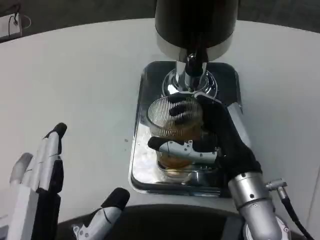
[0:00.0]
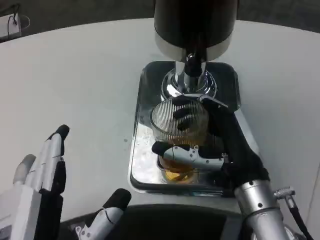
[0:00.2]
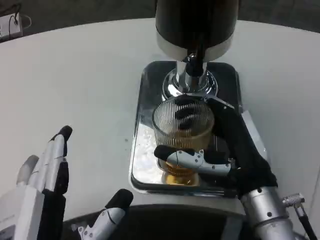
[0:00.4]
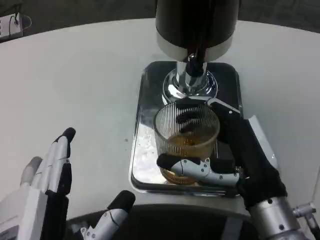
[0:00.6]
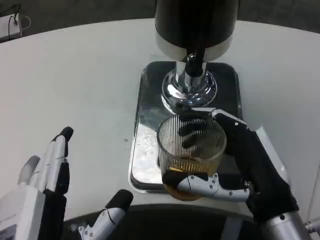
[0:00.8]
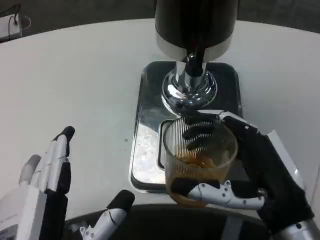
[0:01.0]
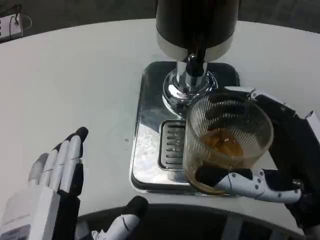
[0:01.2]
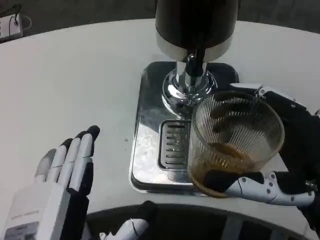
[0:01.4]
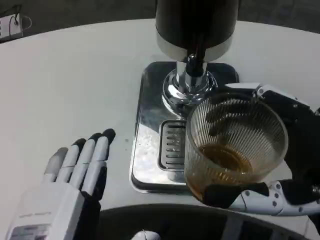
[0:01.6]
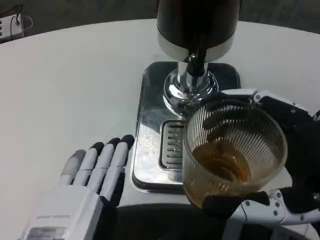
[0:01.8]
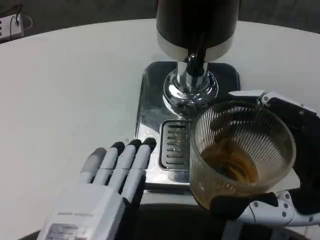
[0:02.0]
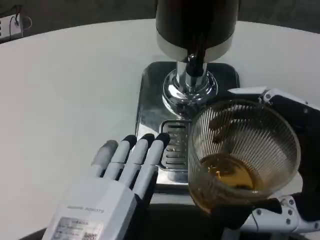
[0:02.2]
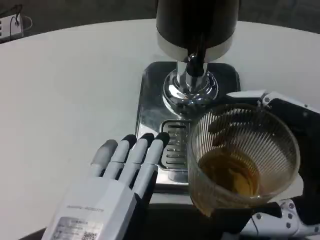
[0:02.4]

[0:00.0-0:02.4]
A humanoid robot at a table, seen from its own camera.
Task of the whole recording: Grasp the cup under the faucet to collect the drink, then remove the cup.
0:00.0 to 0:01.2: The right hand moves backward and to the right, approximately 10 cm.

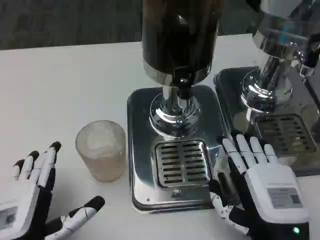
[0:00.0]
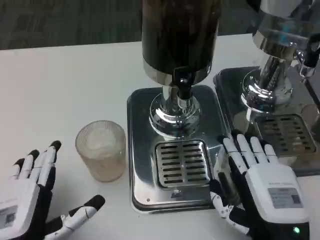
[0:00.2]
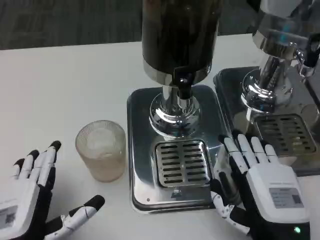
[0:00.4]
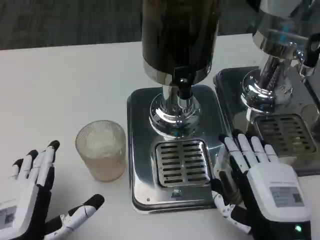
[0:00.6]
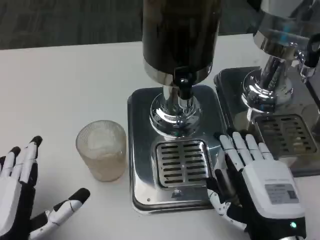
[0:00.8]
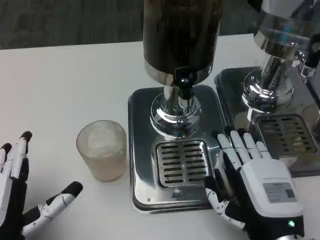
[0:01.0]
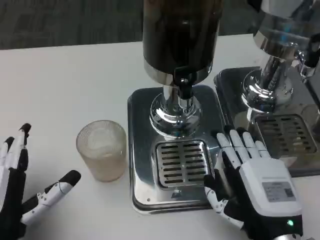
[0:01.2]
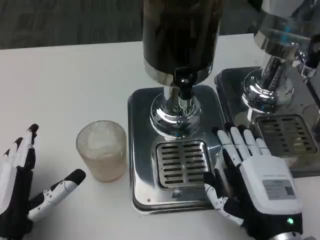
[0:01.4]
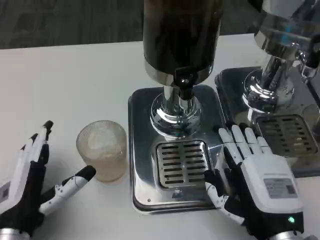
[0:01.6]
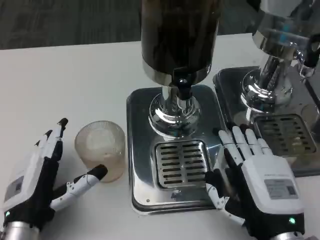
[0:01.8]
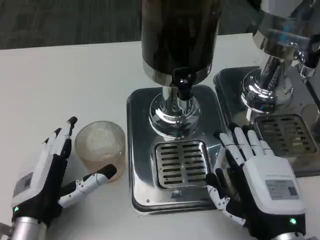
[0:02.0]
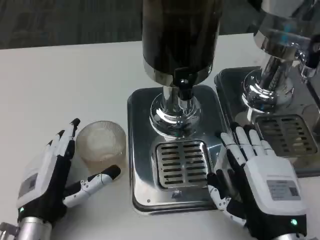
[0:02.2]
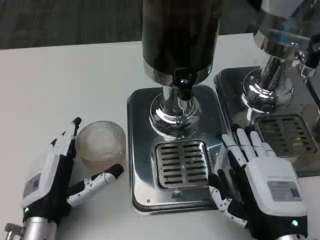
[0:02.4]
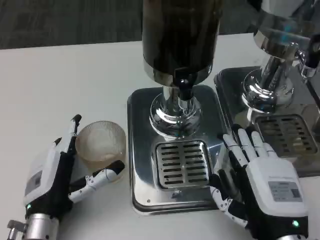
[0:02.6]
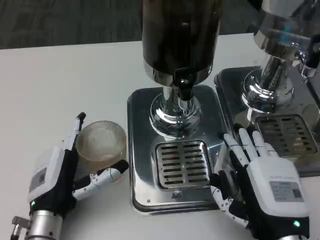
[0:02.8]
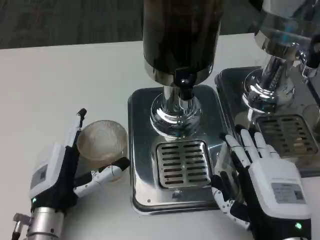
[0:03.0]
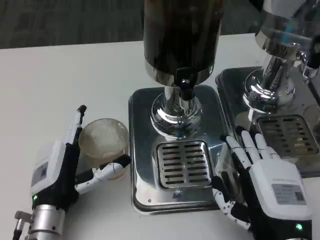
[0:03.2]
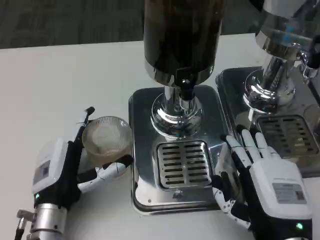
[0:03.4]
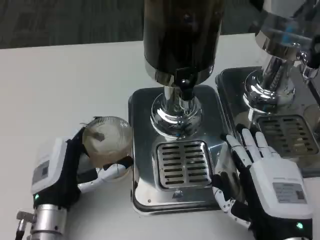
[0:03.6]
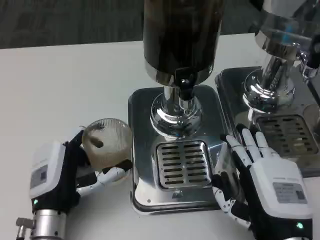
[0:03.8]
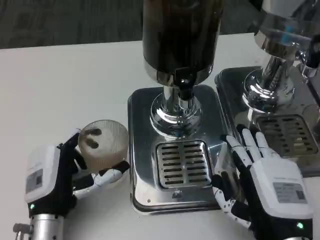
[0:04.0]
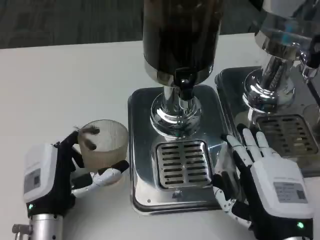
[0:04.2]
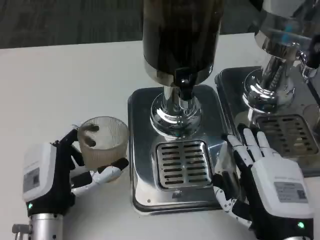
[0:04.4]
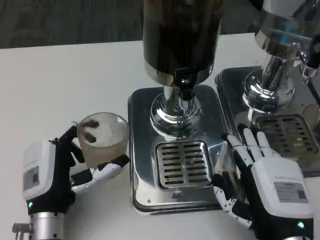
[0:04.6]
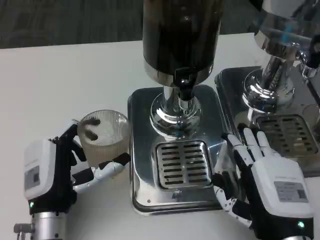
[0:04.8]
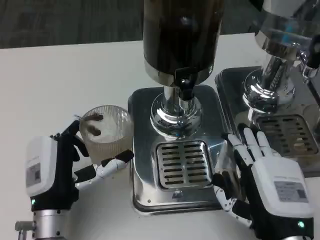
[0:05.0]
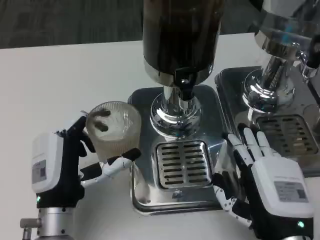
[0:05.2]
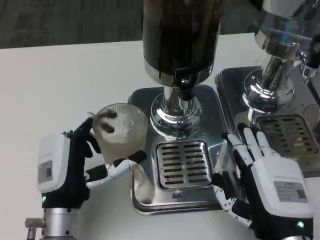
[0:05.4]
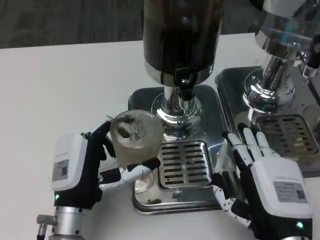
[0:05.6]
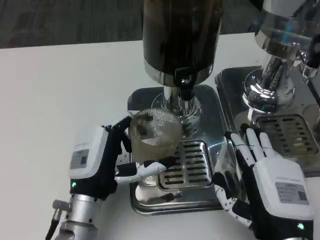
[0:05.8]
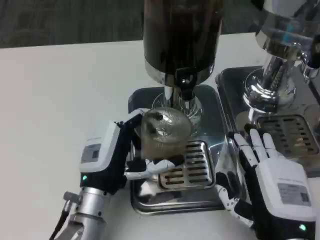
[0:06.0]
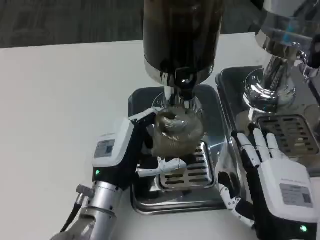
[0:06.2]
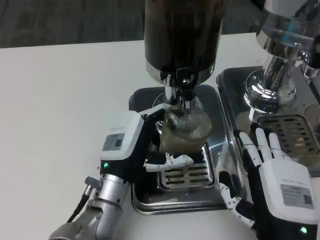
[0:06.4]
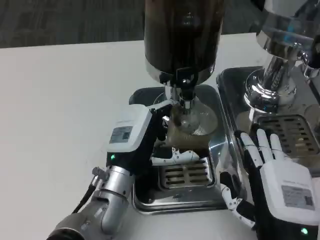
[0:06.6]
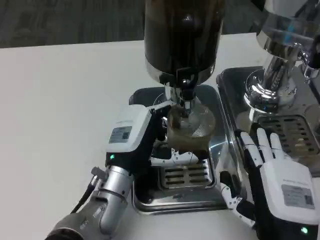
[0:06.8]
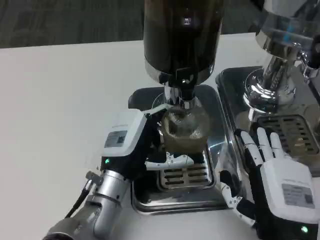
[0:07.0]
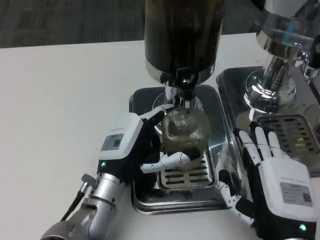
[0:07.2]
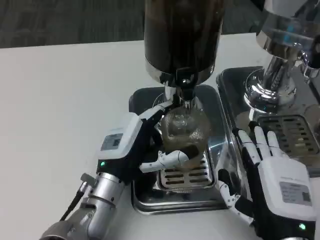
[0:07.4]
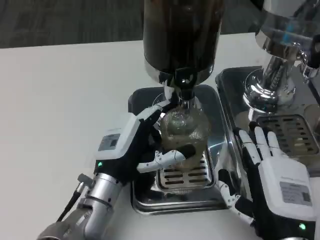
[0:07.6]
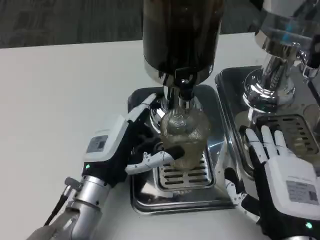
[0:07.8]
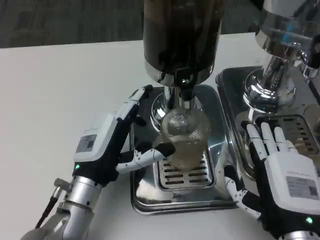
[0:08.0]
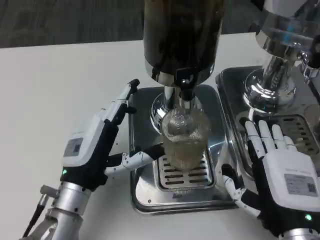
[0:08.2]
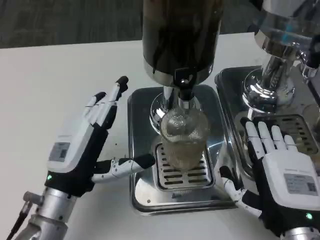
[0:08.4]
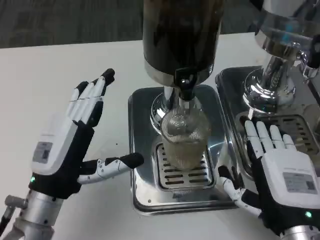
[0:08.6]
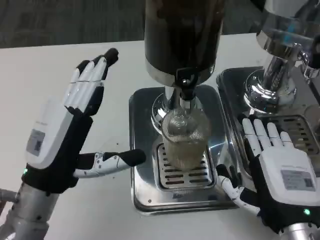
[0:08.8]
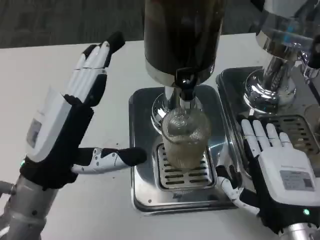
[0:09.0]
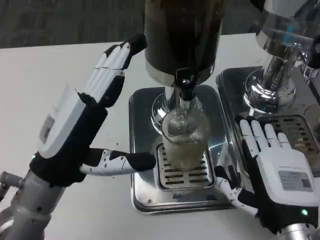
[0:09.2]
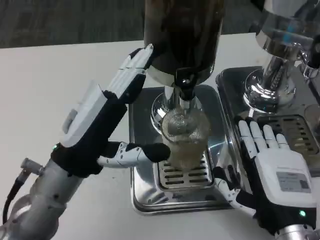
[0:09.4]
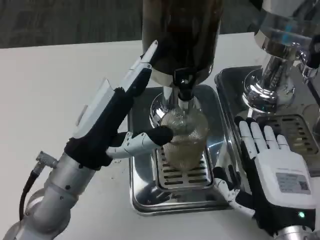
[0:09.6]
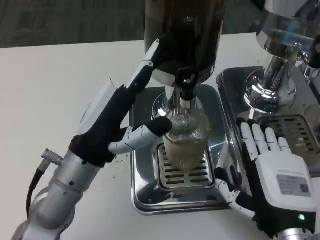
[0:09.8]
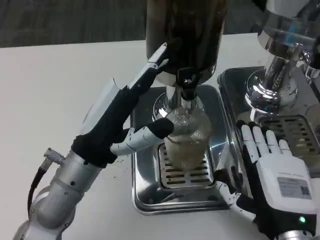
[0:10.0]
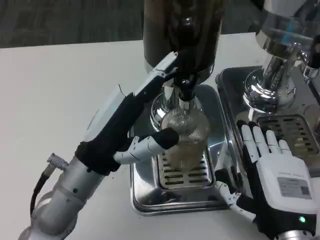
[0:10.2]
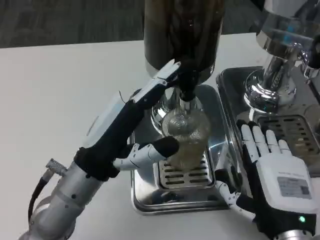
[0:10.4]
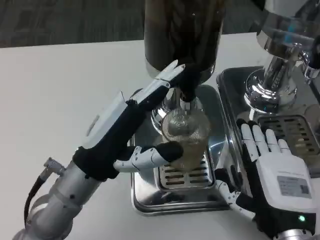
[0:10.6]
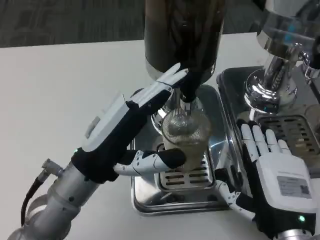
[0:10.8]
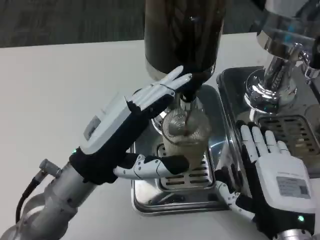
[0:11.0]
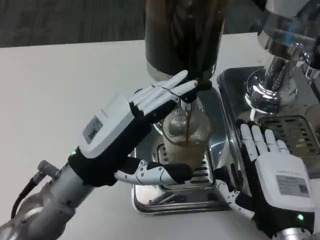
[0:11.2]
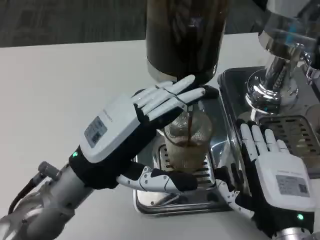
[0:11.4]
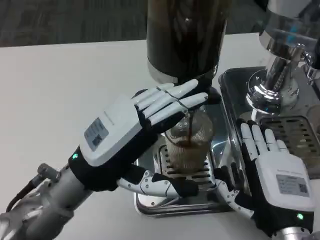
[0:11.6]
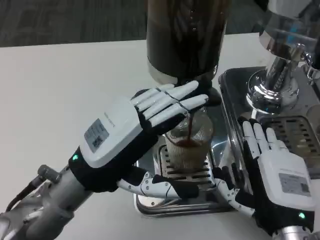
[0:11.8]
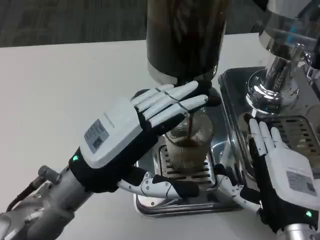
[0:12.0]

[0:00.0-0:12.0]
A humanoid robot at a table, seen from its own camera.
Task of the whole recording: Grasp the cup under the faucet to collect the drink, then remove the cup.
0:00.0 to 0:01.6: The left hand goes about 5 cm forward.
0:01.6 to 0:03.0: The left hand shifts by some 5 cm.
0:03.0 to 0:04.4: The hands make only small movements.
0:04.4 to 0:06.0: The left hand is displaced to the right by about 5 cm.
0:06.0 to 0:07.6: The hands move only a little.
0:07.6 to 0:09.0: The left hand shifts about 10 cm upward and to the left.

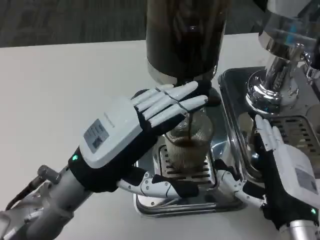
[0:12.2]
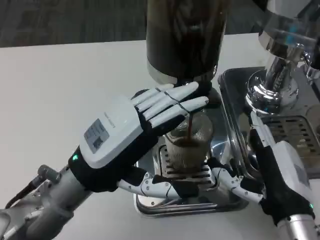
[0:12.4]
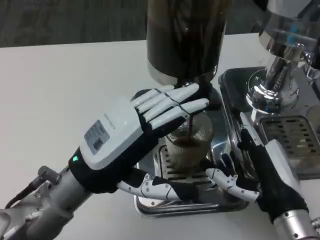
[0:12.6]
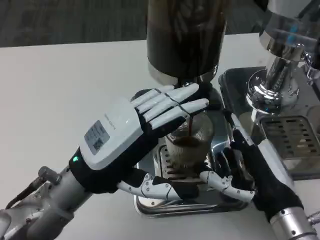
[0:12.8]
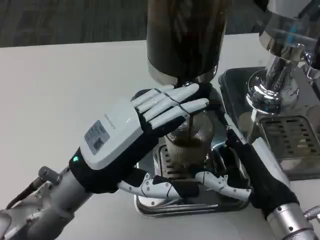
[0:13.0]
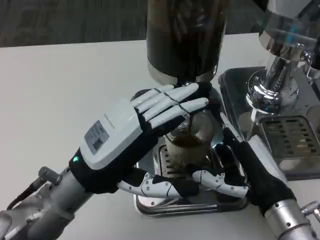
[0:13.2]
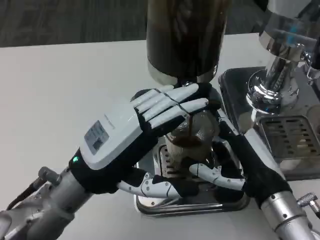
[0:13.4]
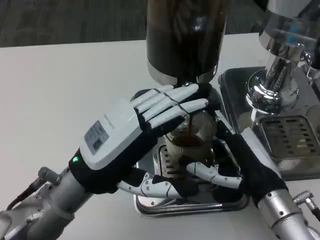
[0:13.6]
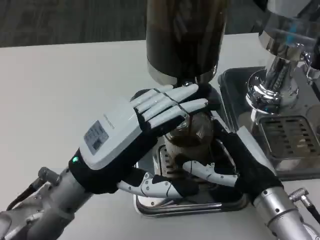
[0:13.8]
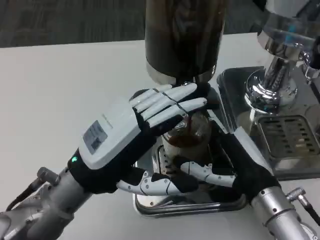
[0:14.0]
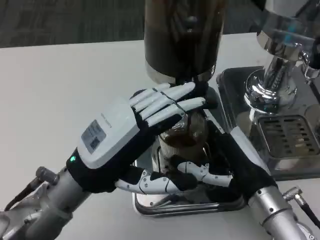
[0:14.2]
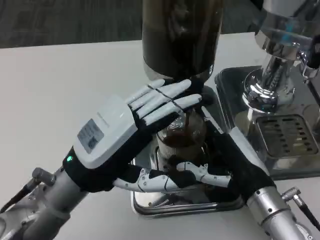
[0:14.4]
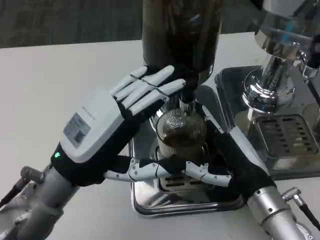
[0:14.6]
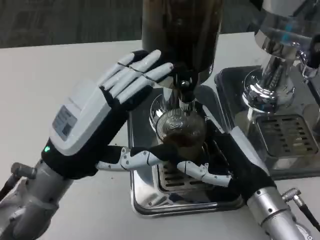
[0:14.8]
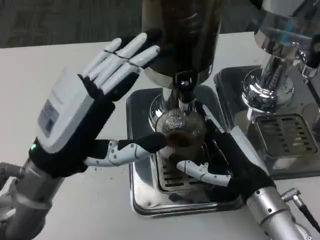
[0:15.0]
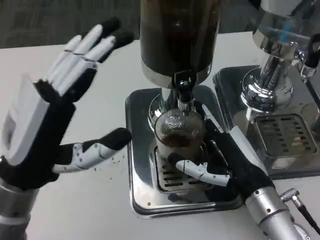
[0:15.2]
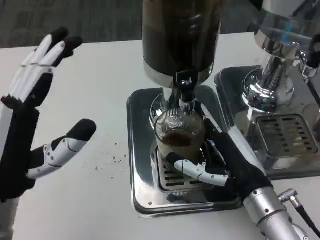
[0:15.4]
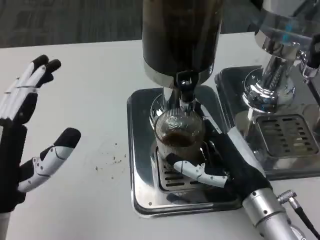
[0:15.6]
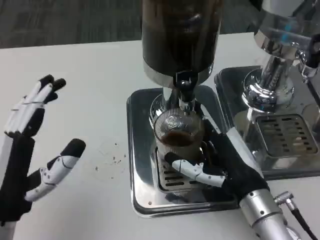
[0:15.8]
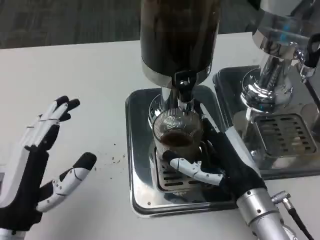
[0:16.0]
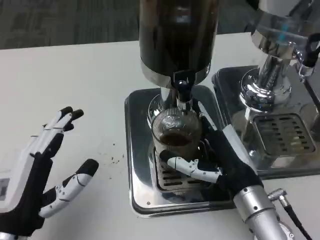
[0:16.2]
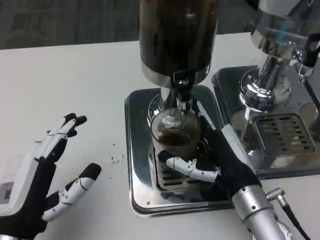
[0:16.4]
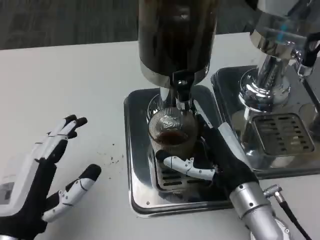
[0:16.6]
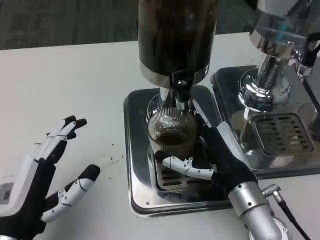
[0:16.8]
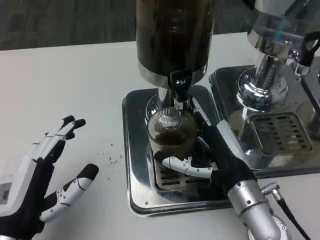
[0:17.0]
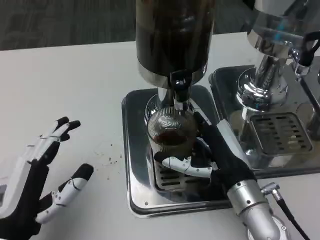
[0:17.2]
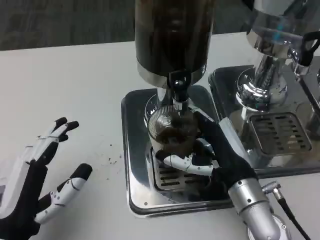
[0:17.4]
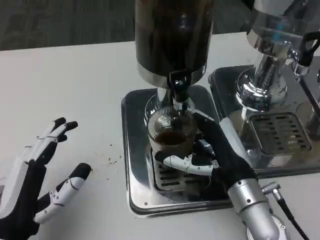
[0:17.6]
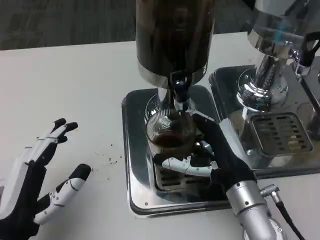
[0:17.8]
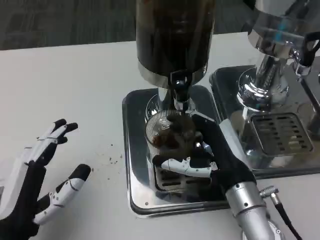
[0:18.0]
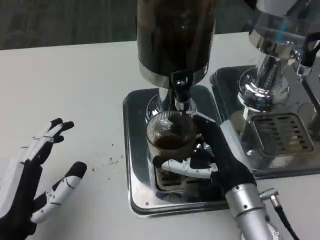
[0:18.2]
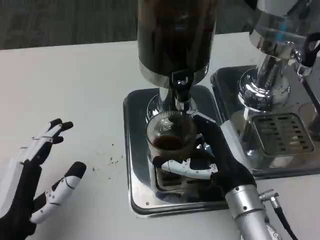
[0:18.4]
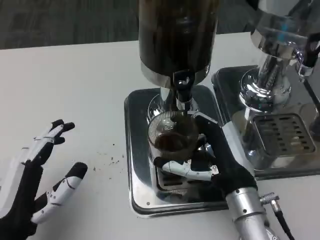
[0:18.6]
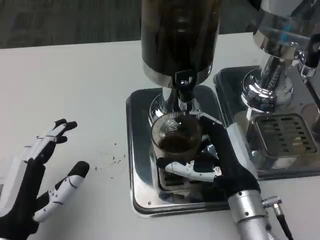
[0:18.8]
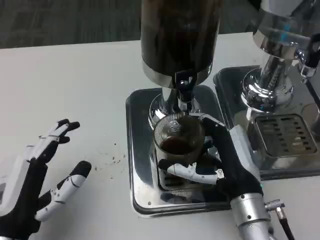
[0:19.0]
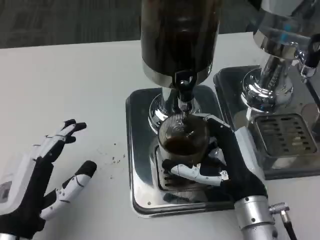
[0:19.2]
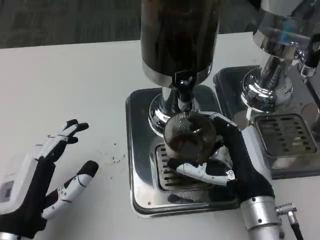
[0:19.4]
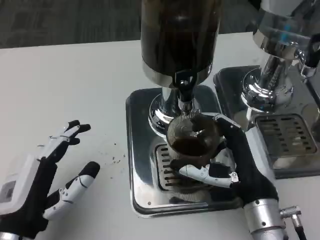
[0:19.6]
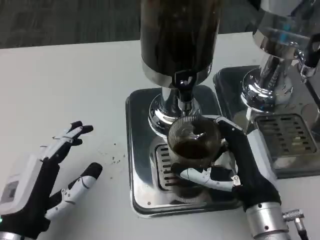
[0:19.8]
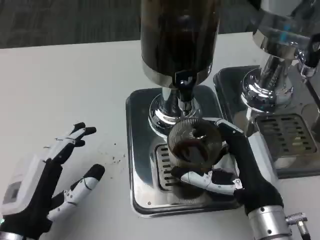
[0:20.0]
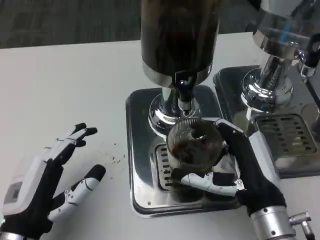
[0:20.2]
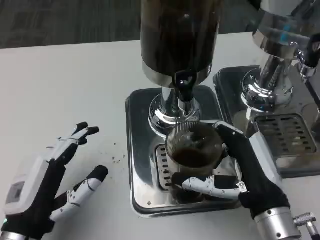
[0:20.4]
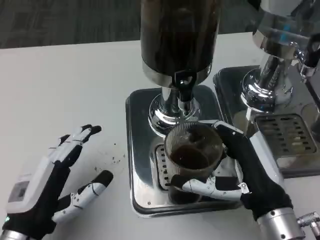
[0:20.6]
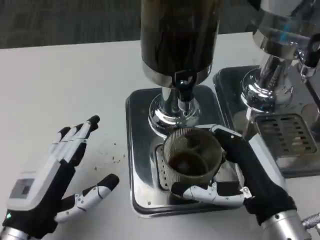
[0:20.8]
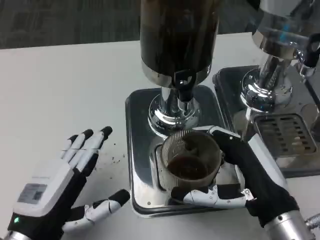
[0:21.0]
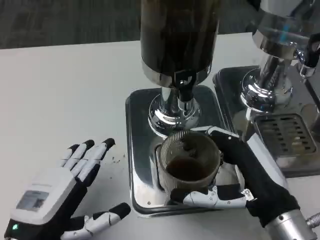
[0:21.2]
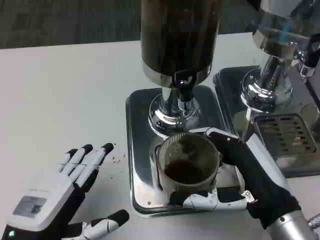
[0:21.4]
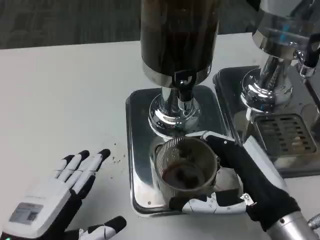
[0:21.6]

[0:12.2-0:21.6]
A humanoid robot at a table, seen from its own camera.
Task of the whole recording: Grasp the cup under the faucet to collect the drink, then remove the cup.
0:12.2 to 0:13.8: The right hand heads forward, covering approximately 5 cm.
0:13.8 to 0:15.4: The left hand shifts about 5 cm to the left.
0:15.4 to 0:17.0: The left hand travels downward by approximately 5 cm.
0:17.0 to 0:18.4: The hands stay close to where they were, moving slightly.
0:20.0 to 0:21.6: The right hand ends up some 5 cm from where it was.
